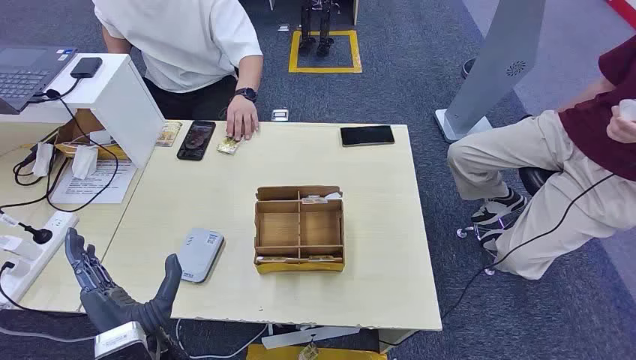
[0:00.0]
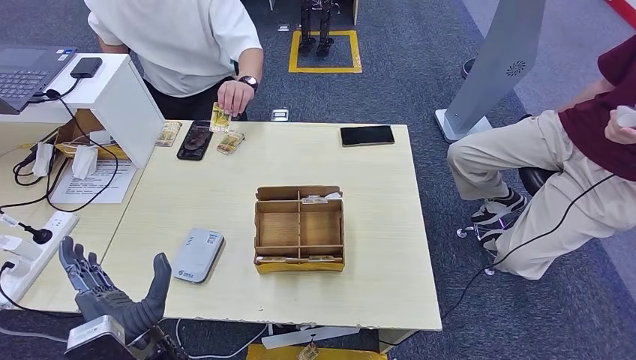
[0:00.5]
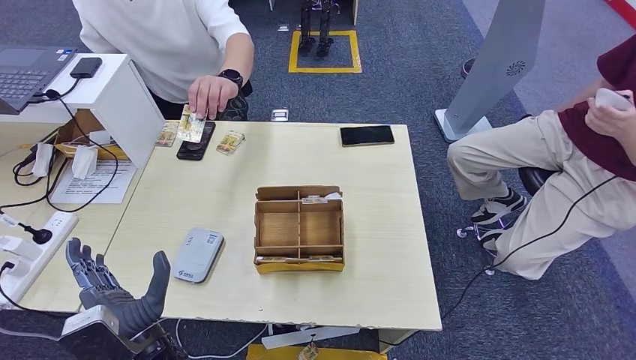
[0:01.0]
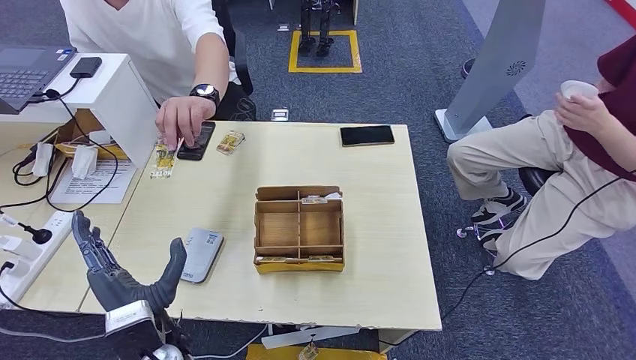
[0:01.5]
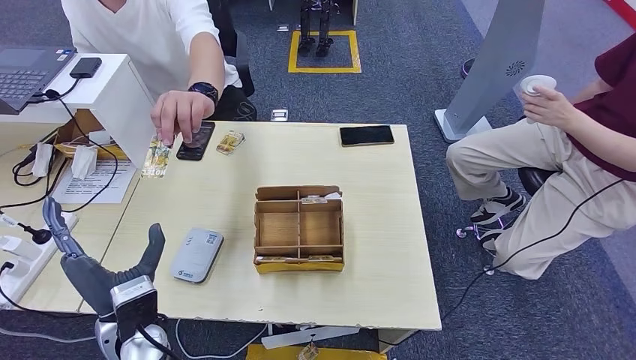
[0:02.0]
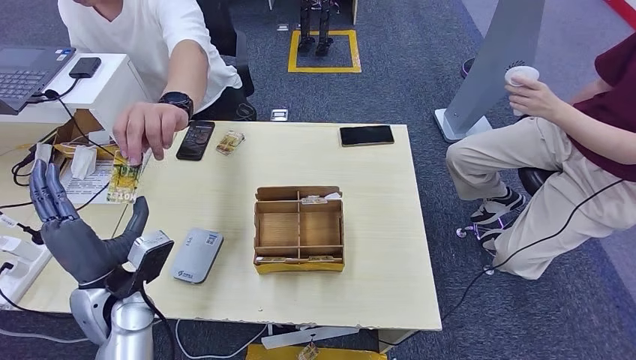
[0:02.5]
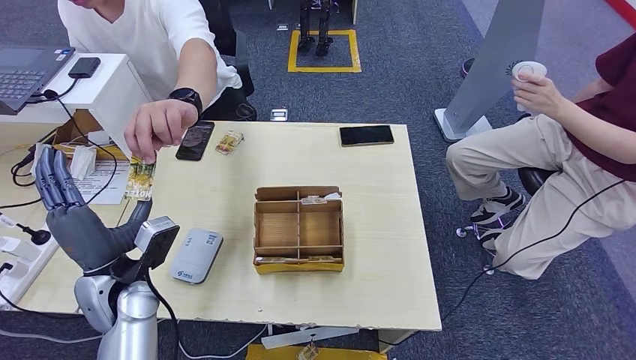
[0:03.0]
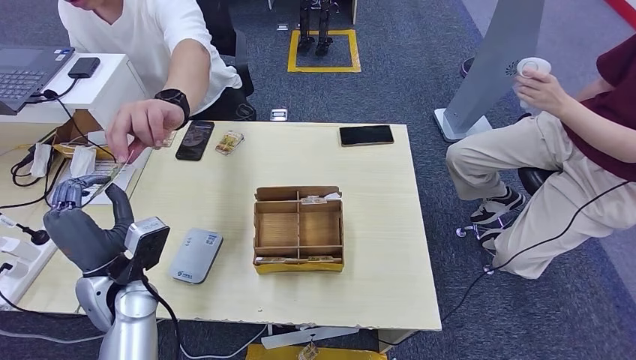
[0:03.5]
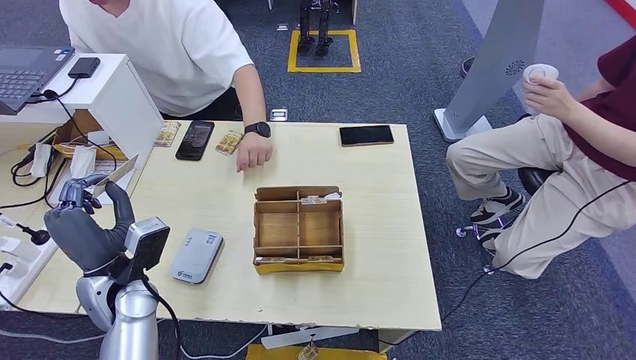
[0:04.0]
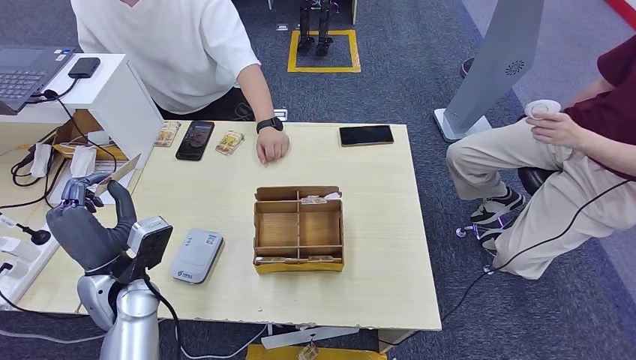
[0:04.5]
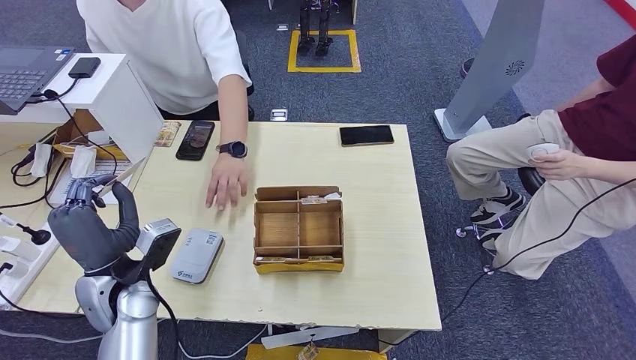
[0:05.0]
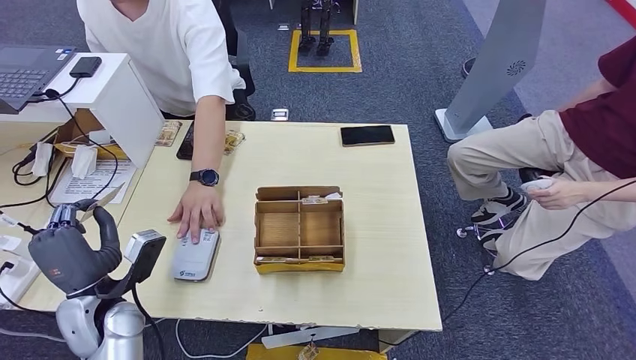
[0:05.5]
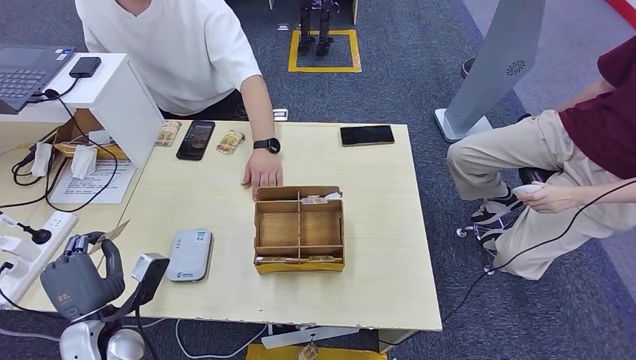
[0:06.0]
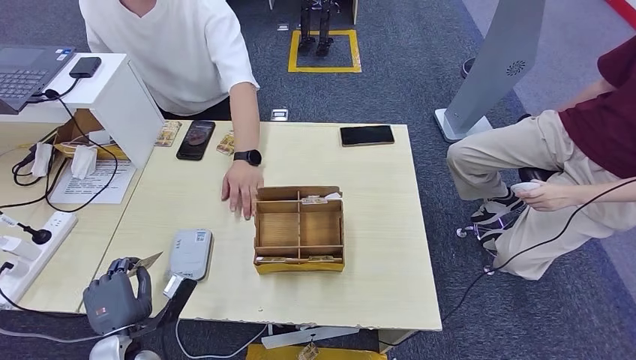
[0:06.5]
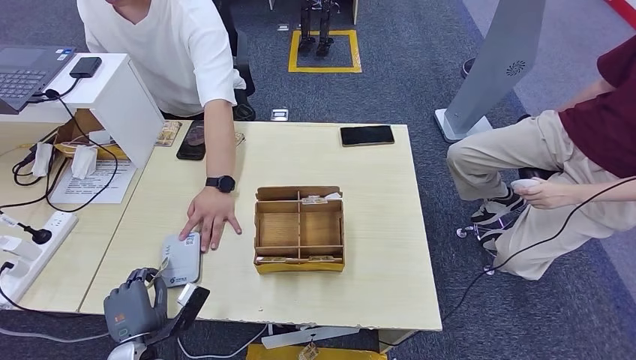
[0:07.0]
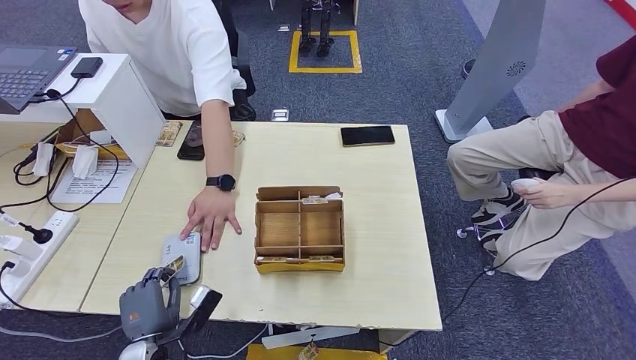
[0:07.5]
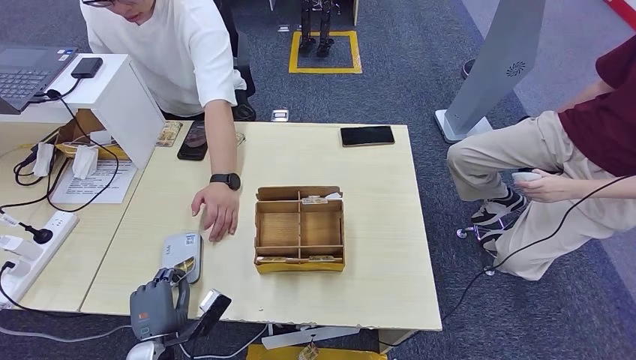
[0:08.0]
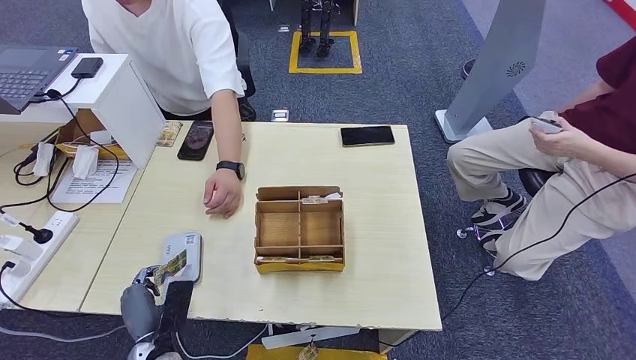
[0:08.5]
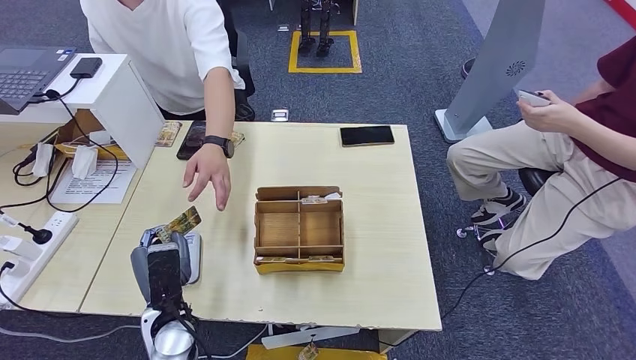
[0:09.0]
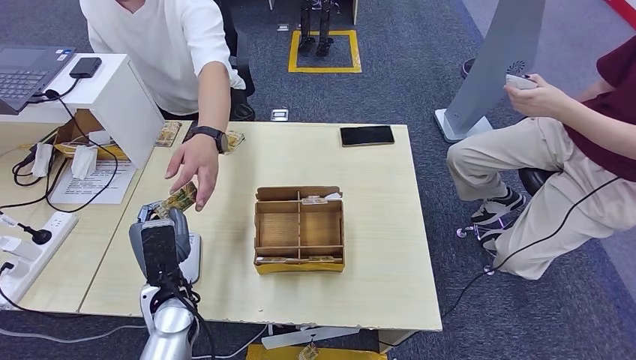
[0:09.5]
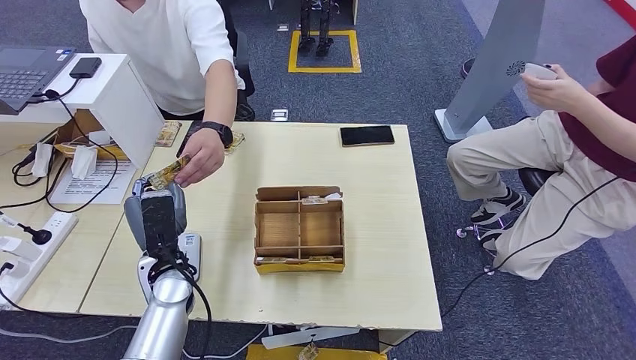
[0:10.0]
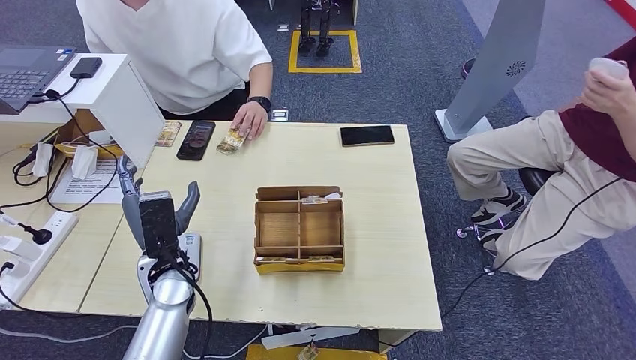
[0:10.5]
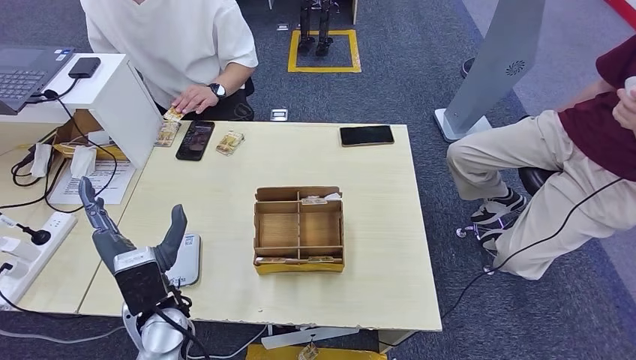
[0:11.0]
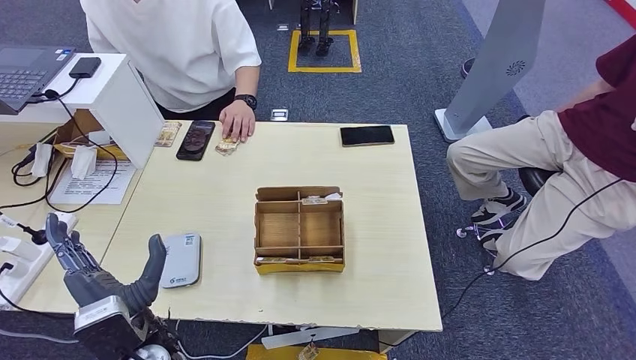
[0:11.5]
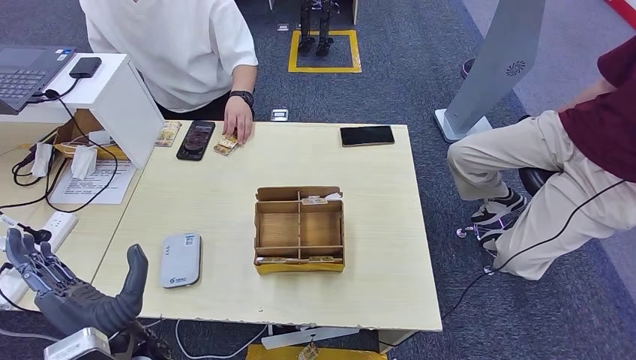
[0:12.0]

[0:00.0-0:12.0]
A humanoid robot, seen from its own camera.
Step, 0:00.0 to 0:04.5: Take the ID card from the person's hand.
Step, 0:05.0 to 0:08.0: Place the ID card on the card reader.
Step, 0:08.5 to 0:11.0: Hand the ID card to the person.
0:02.0 to 0:04.0: The left hand is displaced forward by some 5 cm.
0:04.0 to 0:06.0: The left hand travels downward and backward by some 10 cm.
0:06.0 to 0:08.0: The left hand moves downward and to the right, approximately 10 cm.
0:08.0 to 0:10.0: The left hand goes some 15 cm upward and forward.
0:10.0 to 0:12.0: The left hand heads backward, covering some 15 cm.

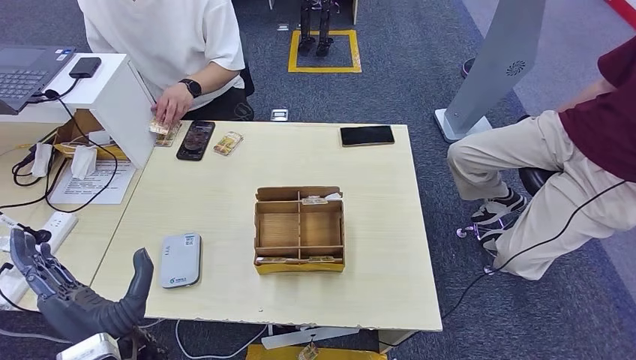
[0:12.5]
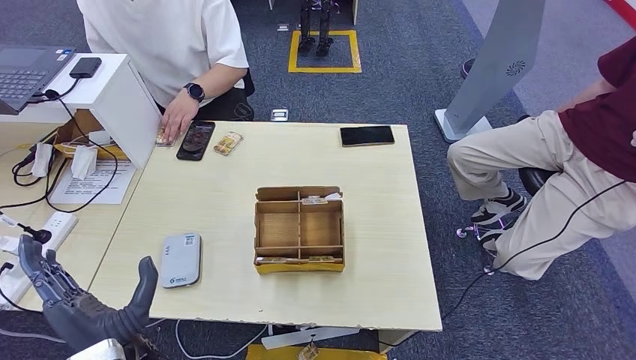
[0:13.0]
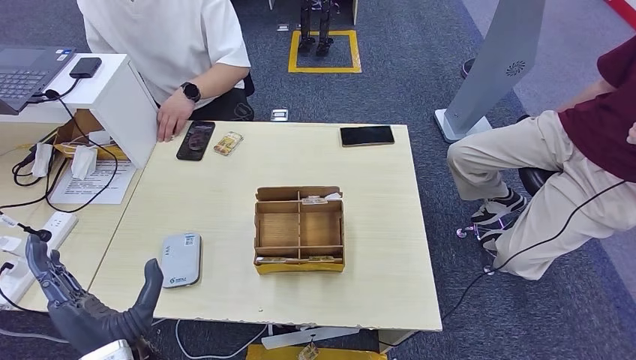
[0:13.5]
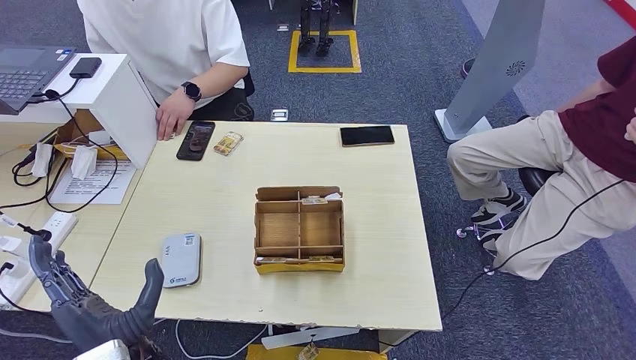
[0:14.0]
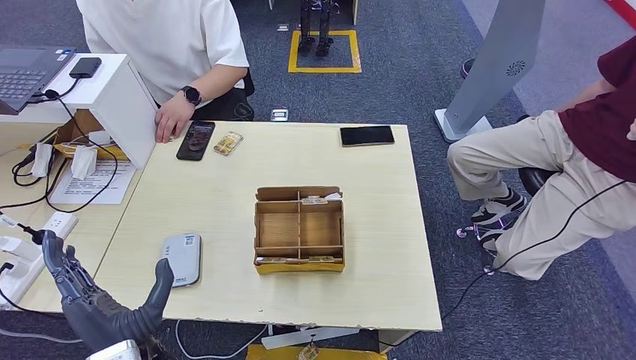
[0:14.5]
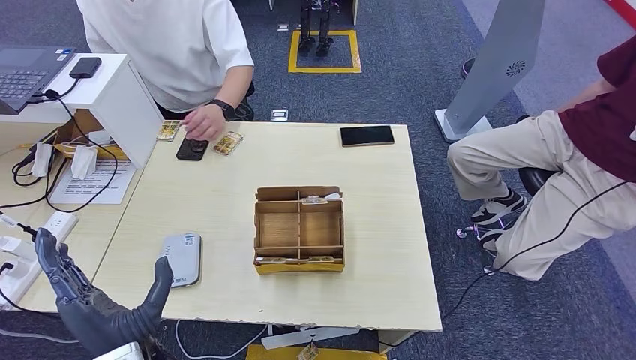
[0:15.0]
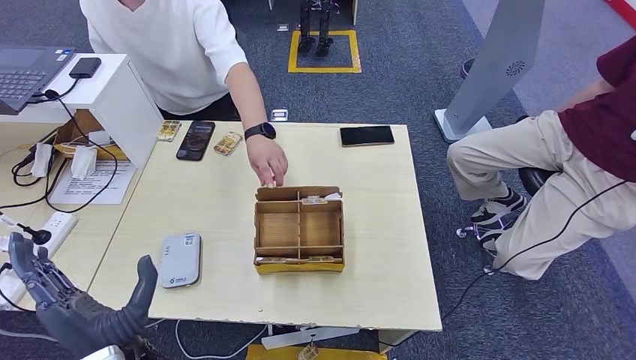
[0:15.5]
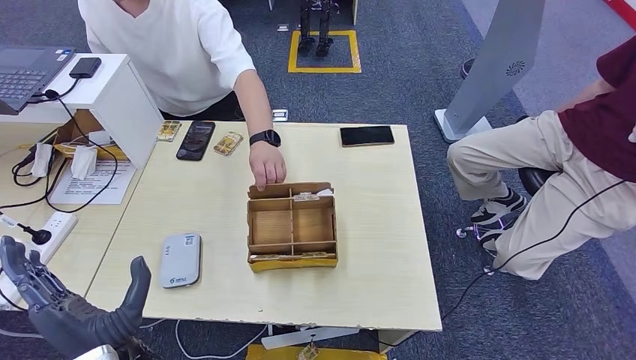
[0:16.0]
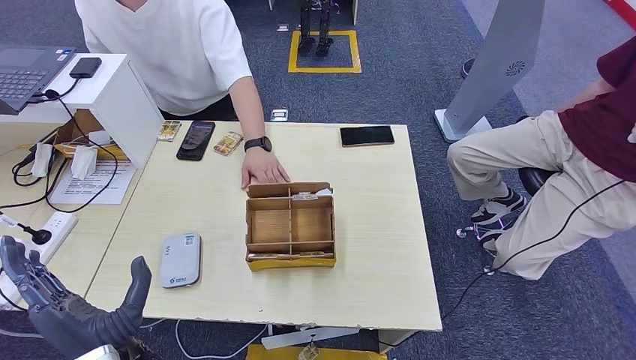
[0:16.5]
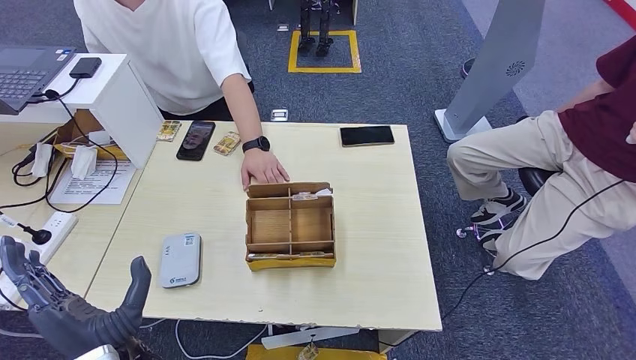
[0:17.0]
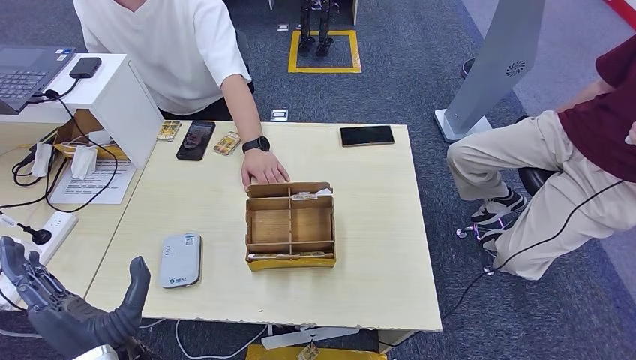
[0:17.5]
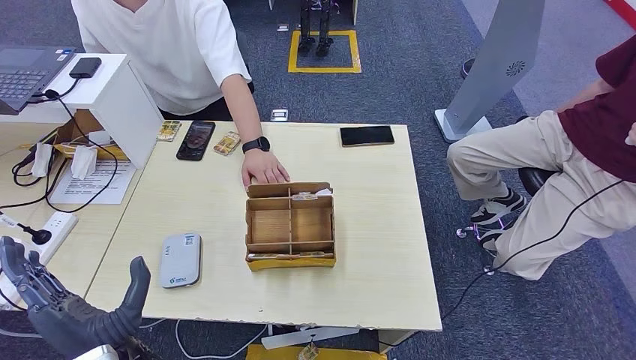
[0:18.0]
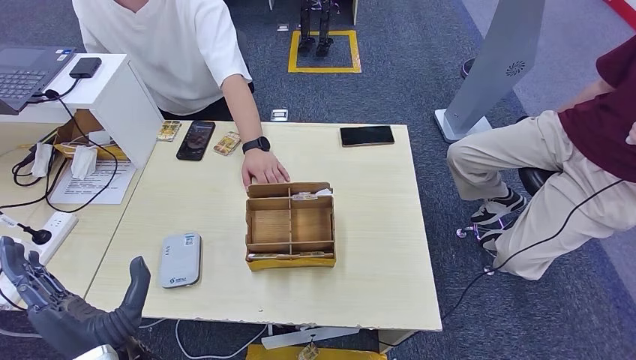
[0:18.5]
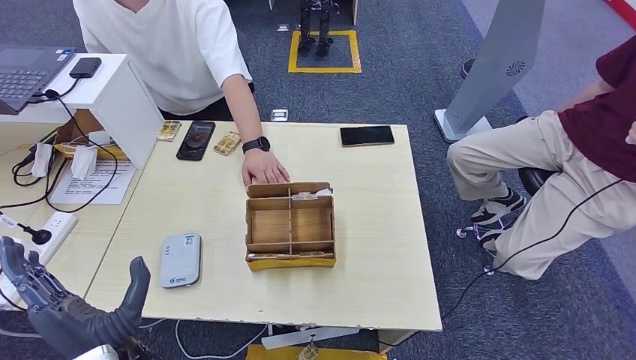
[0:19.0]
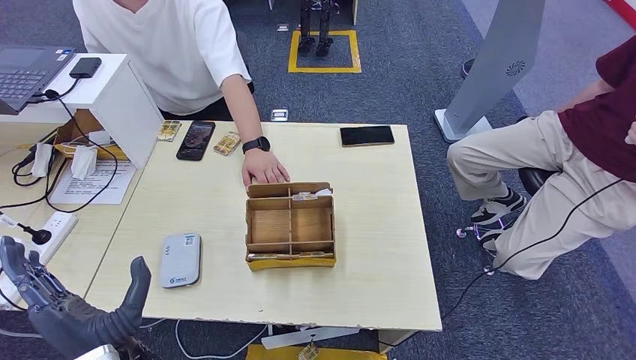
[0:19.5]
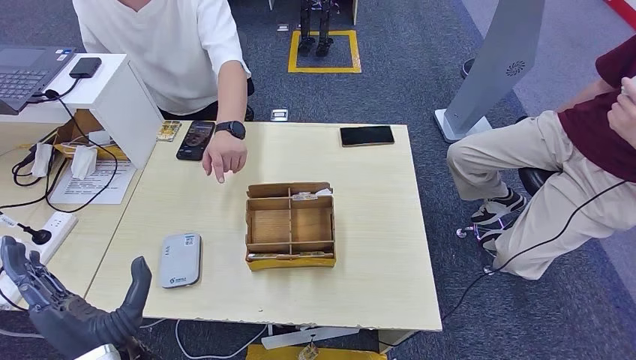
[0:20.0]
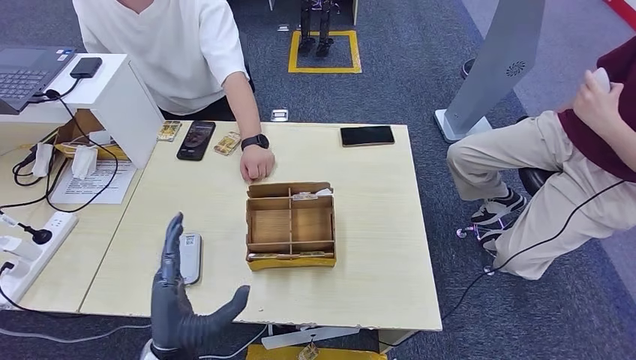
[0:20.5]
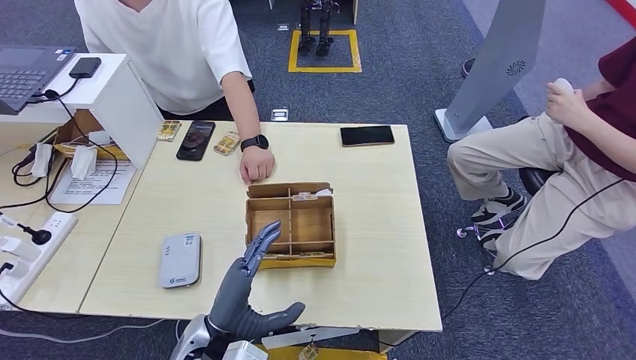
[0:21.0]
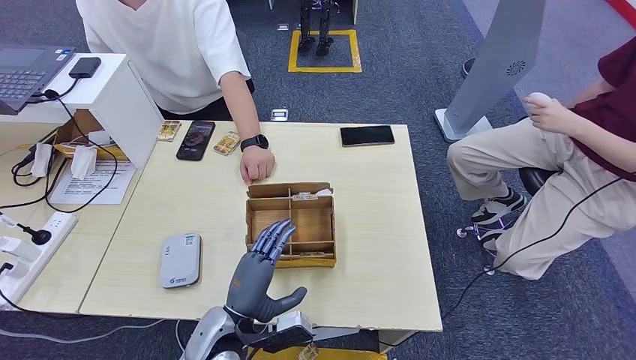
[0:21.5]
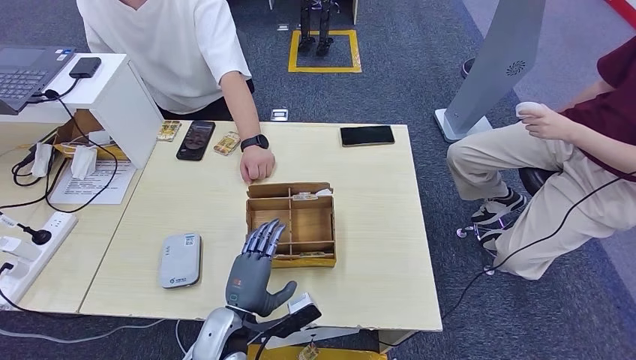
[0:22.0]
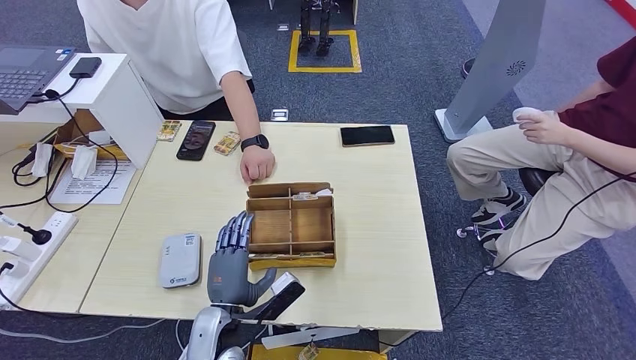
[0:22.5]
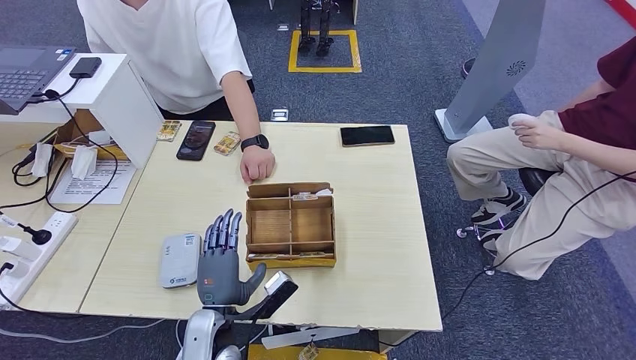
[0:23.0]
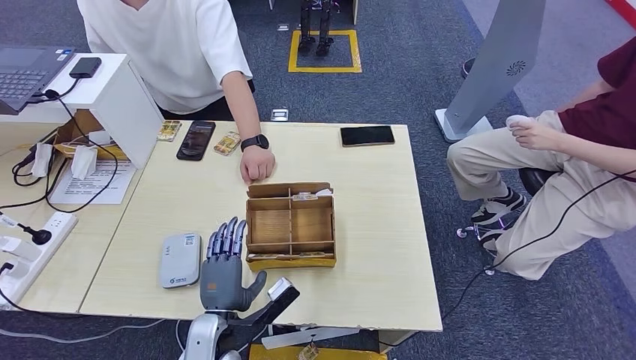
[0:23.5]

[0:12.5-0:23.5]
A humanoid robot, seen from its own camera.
0:12.5 to 0:16.0: The hands stay close to where they were, moving slightly.
0:16.0 to 0:20.0: The two hands keep their place.
0:20.0 to 0:21.5: The left hand is displaced to the right and downward by some 10 cm.
